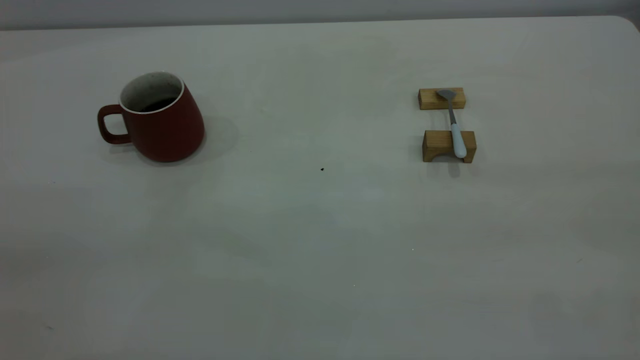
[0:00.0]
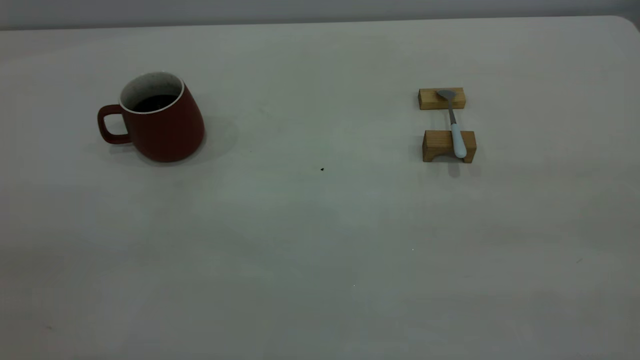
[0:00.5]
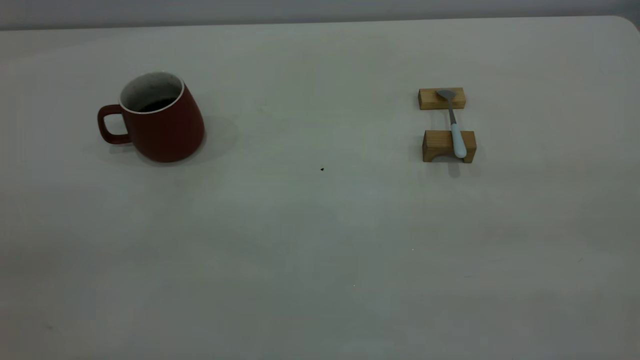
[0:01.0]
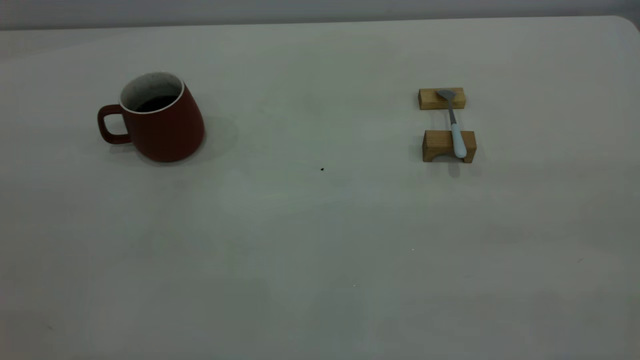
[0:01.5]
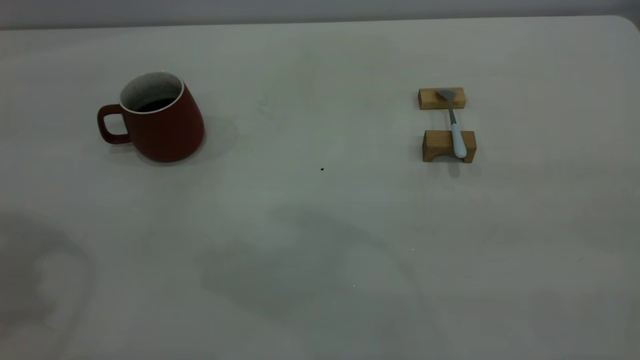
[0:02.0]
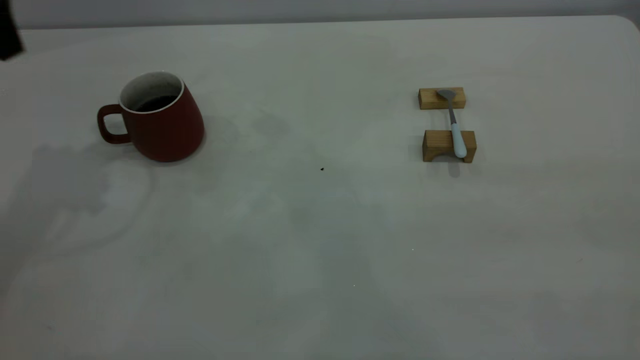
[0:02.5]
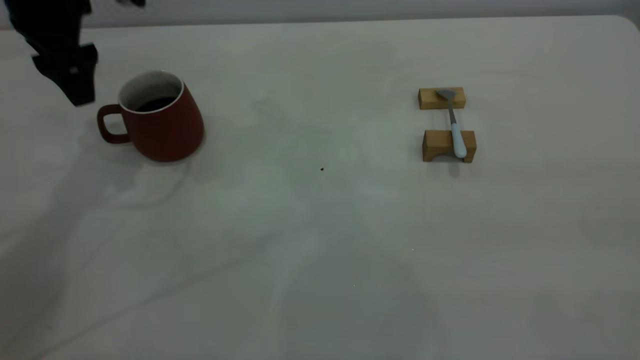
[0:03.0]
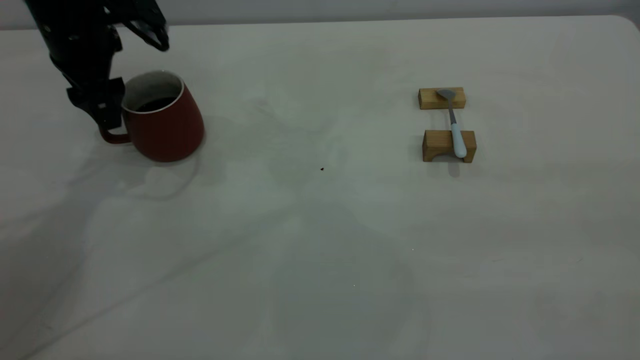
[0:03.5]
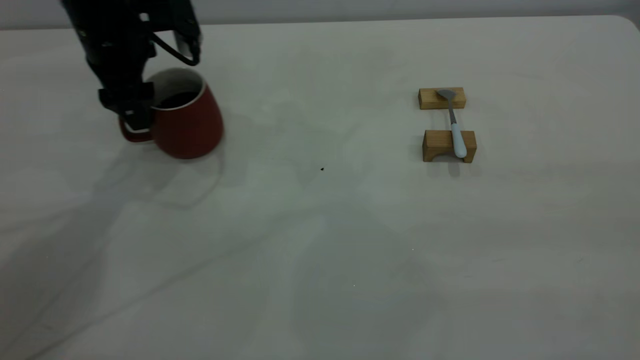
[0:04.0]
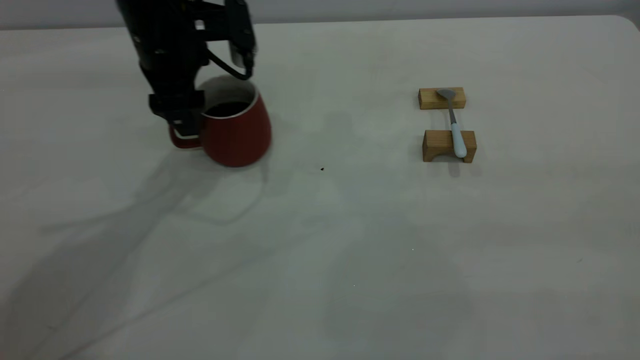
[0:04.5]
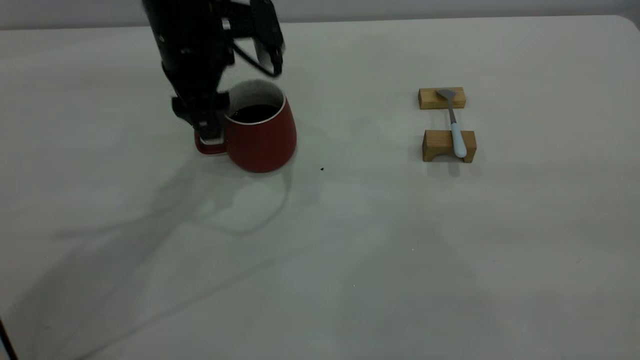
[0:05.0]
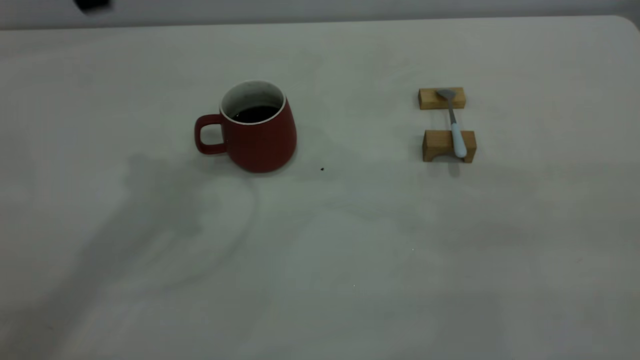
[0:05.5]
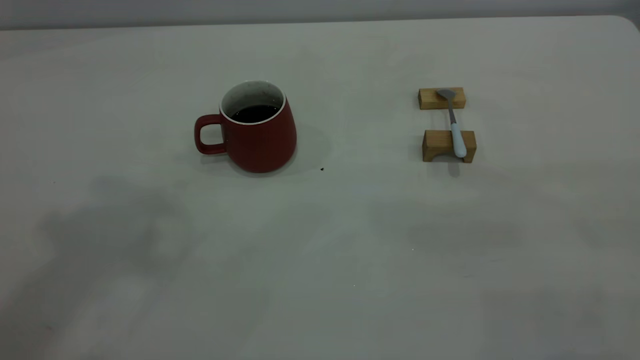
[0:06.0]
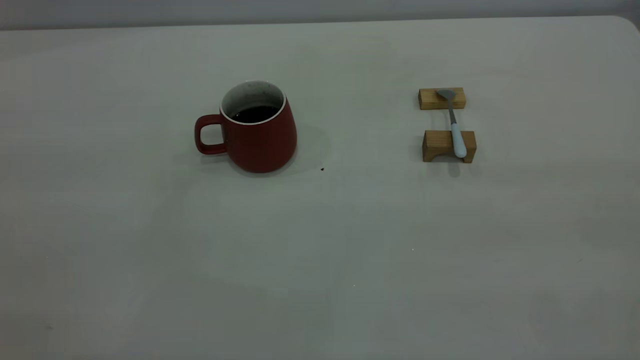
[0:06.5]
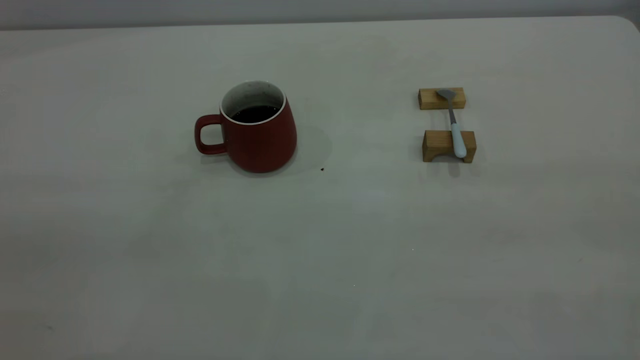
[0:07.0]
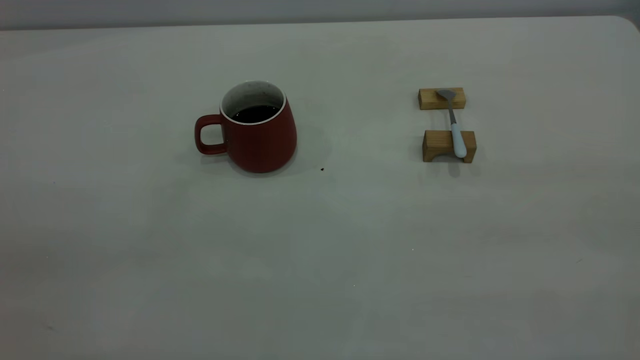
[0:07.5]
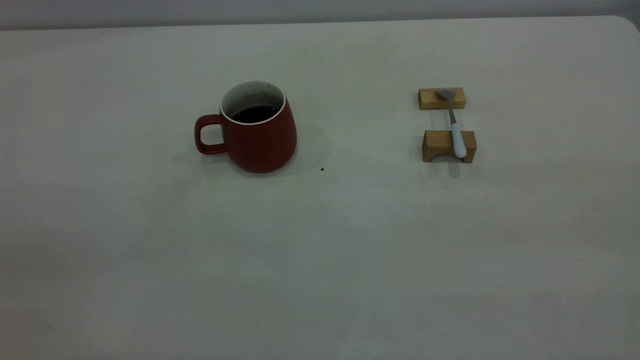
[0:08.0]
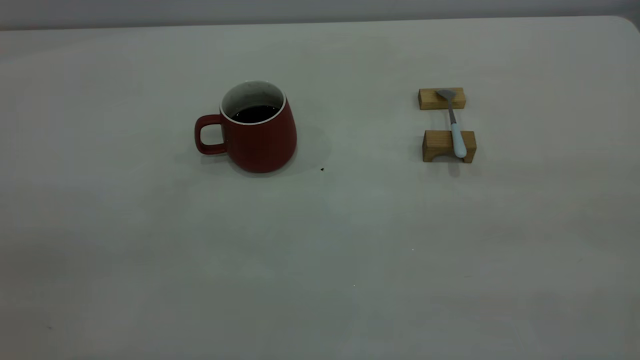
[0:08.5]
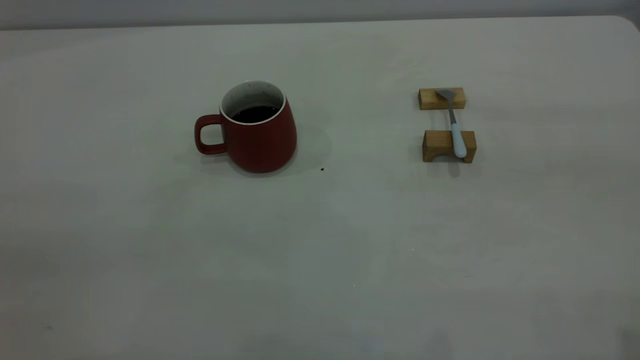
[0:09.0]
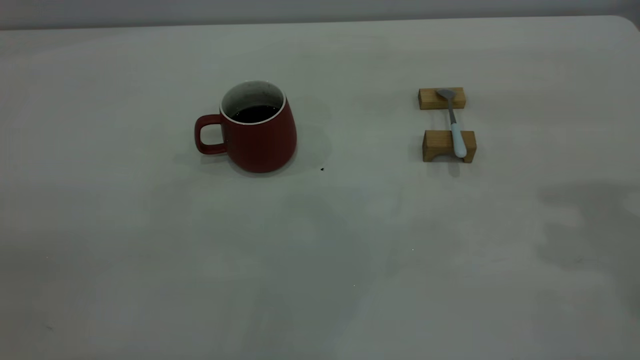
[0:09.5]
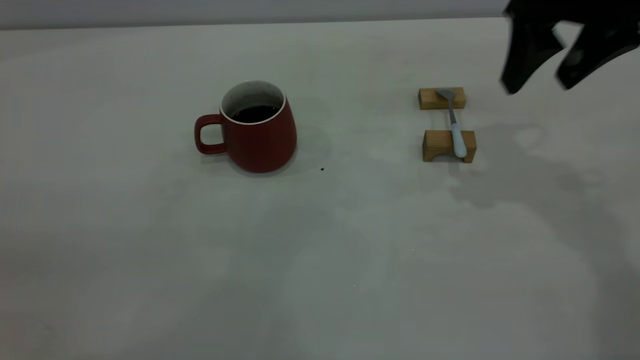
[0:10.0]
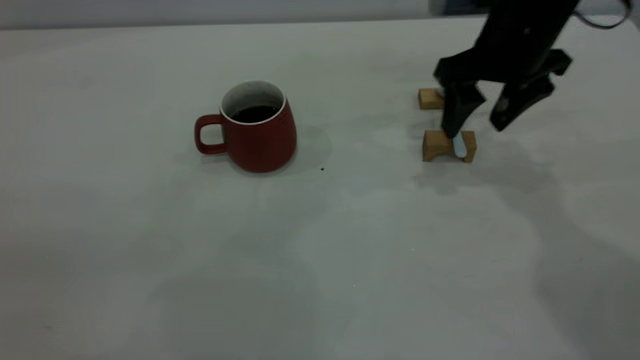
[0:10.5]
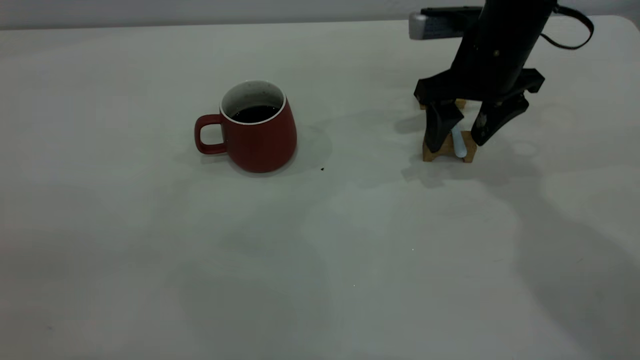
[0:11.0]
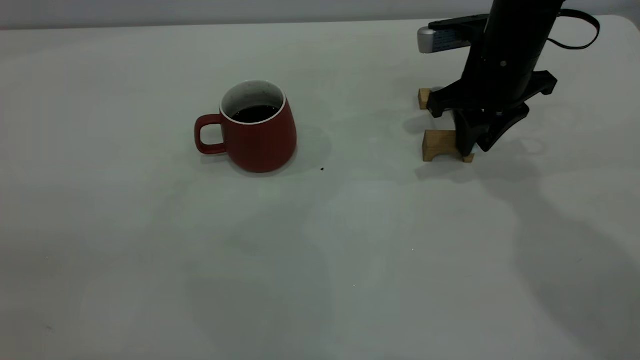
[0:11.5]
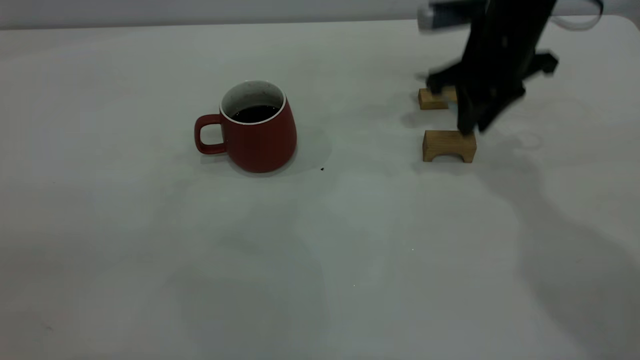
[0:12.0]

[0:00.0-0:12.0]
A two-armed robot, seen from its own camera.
Step, 0:00.0 to 0:05.0: Move the cup with coffee to the center of view.
Step, 0:05.5 to 0:11.5: Pick up the spoon.
0:02.0 to 0:04.0: The left gripper heads downward, forward and to the right, covering about 30 cm, and opens its fingers.
0:04.0 to 0:06.0: The left gripper heads upward and backward, covering roughly 40 cm.
0:08.0 to 0:10.0: The right gripper goes some 35 cm forward, and opens up.
0:10.0 to 0:12.0: The right gripper travels downward and forward by about 10 cm, and closes.

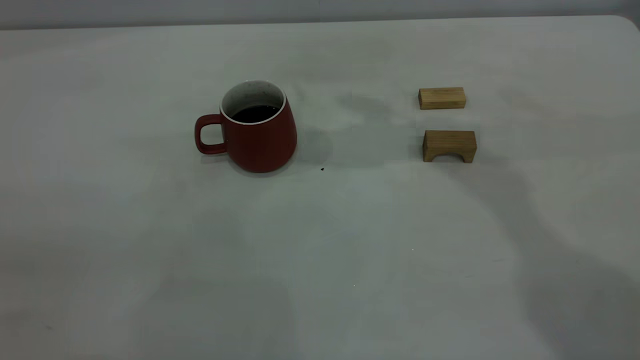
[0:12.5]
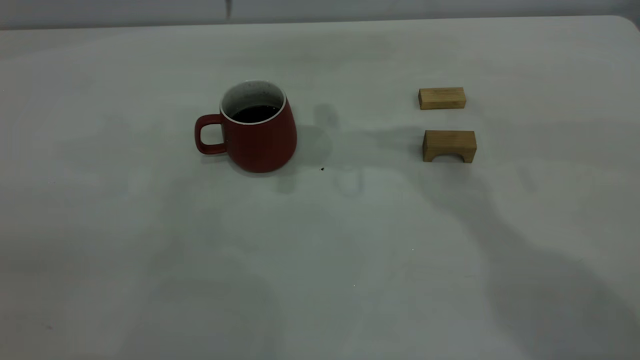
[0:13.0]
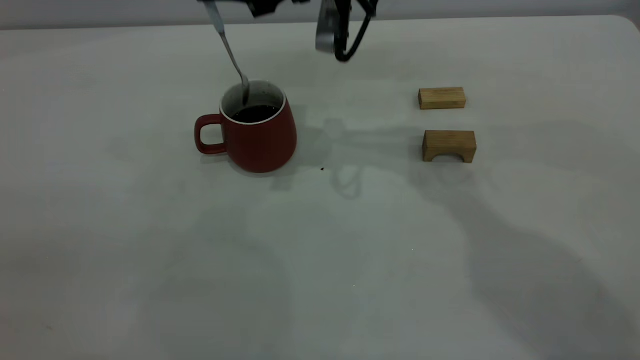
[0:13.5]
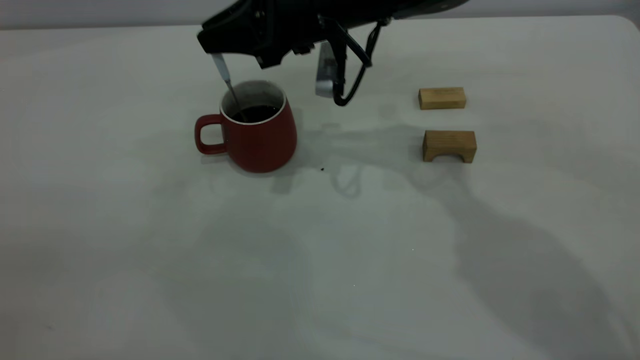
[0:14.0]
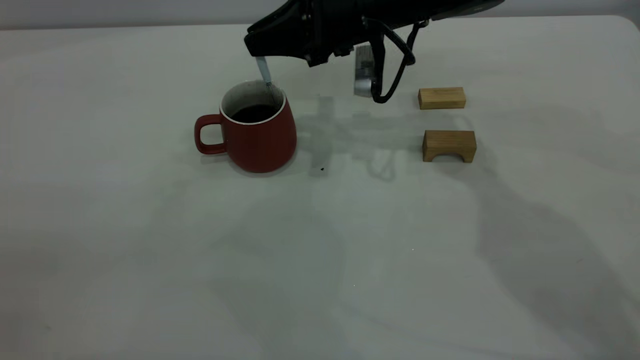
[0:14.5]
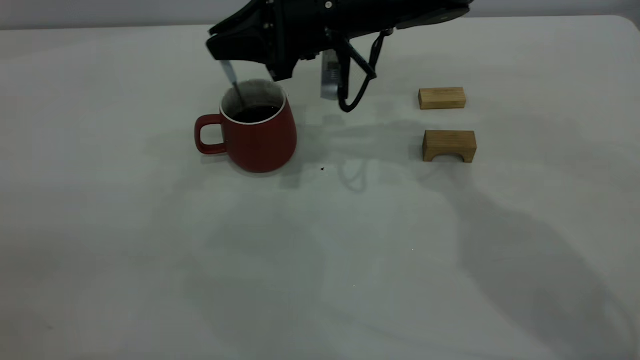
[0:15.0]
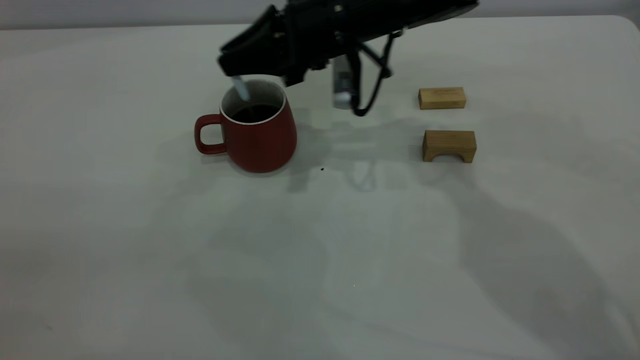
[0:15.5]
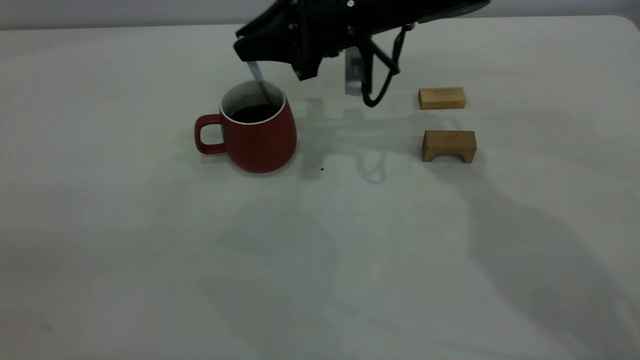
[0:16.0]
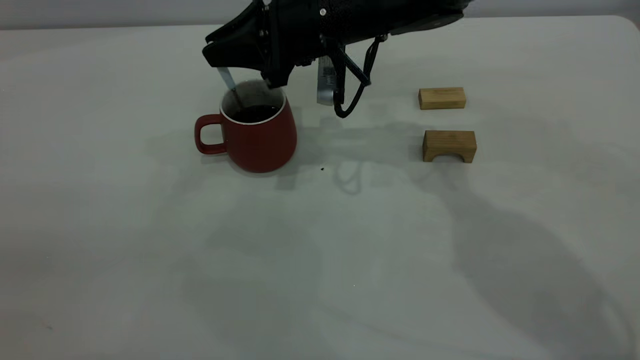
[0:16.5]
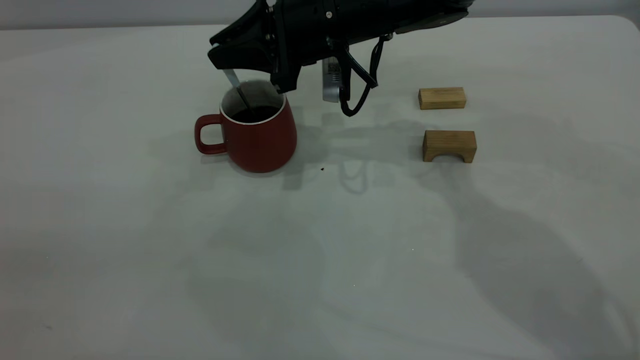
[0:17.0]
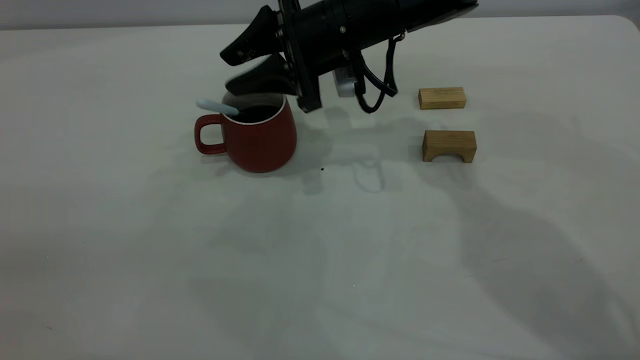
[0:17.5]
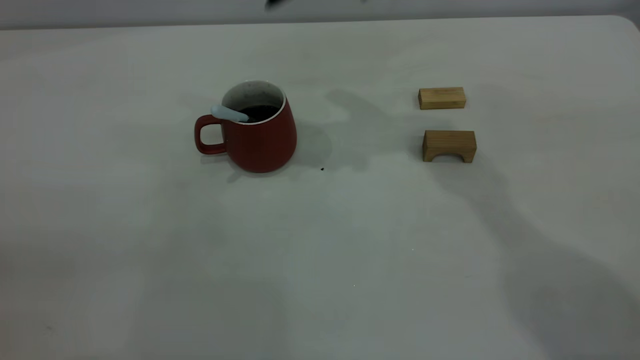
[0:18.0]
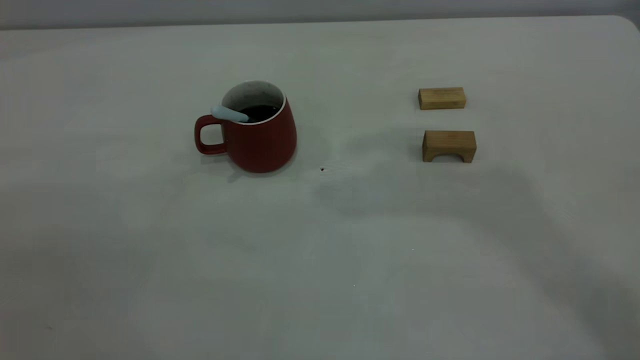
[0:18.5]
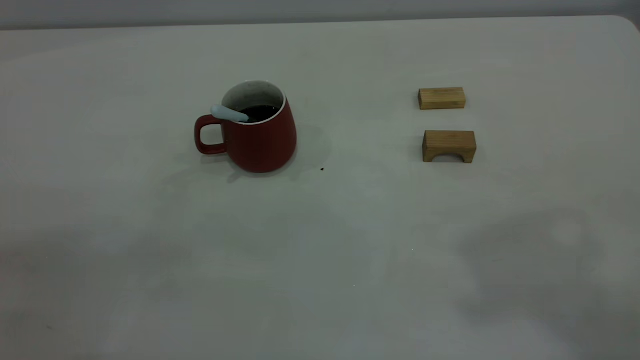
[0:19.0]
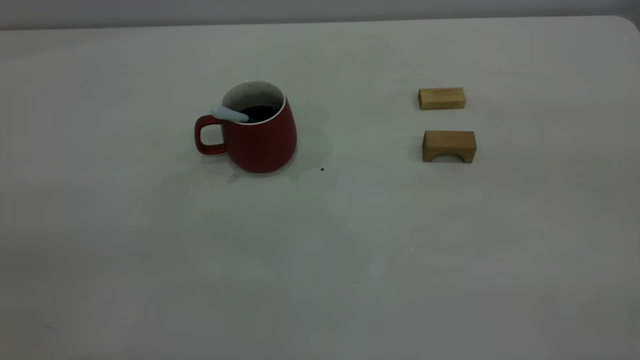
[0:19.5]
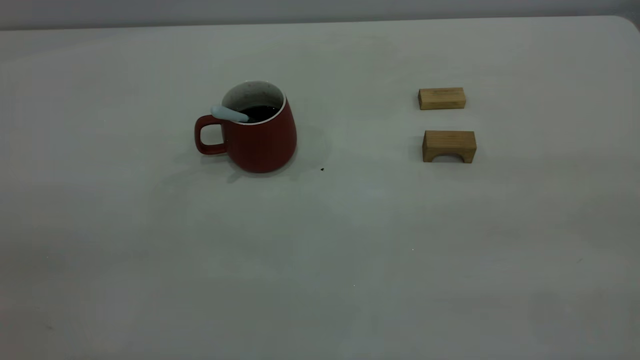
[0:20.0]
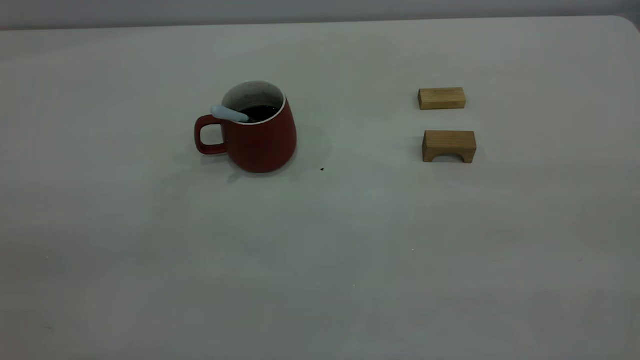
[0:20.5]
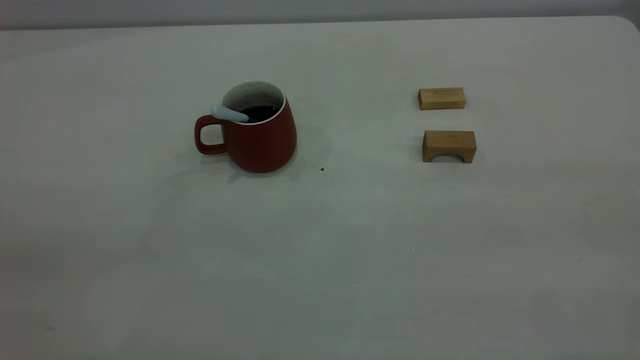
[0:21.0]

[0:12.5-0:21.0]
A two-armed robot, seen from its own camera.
Step, 0:12.5 to 0:17.5: Stir the coffee in the cup.
0:12.5 to 0:14.5: The right gripper travels downward by roughly 15 cm.
0:14.5 to 0:16.5: The grippers stay close to where they were, moving slightly.
0:16.5 to 0:19.0: The right gripper moves upward, backward and to the right, some 50 cm, and opens up.
